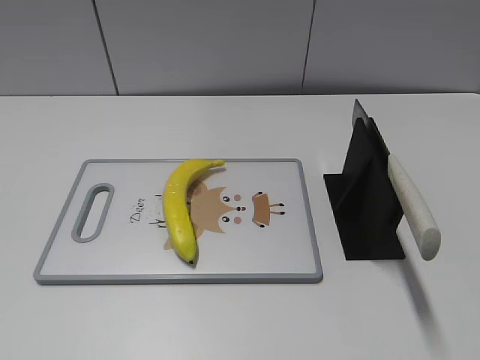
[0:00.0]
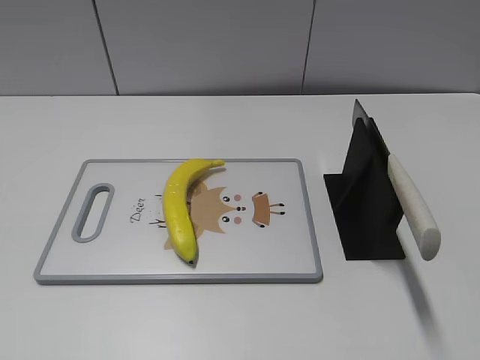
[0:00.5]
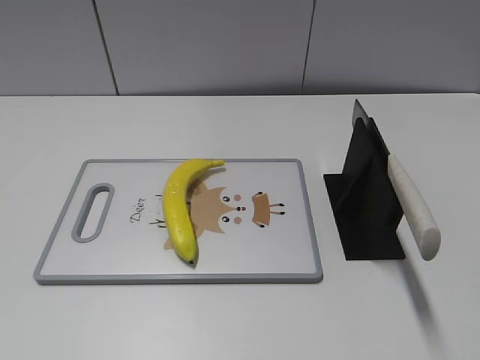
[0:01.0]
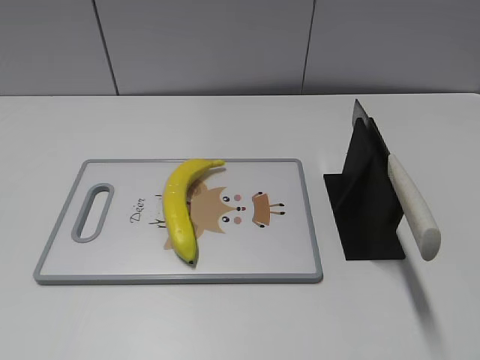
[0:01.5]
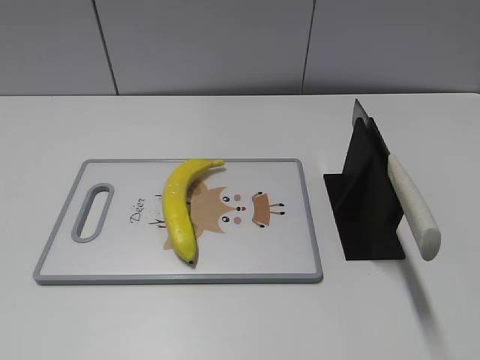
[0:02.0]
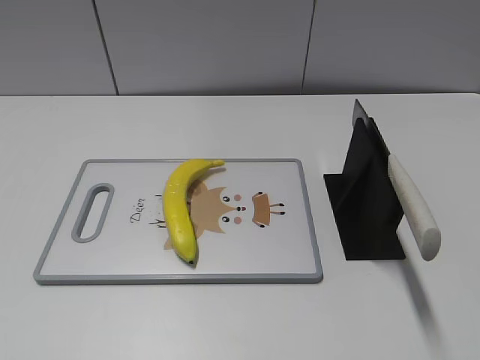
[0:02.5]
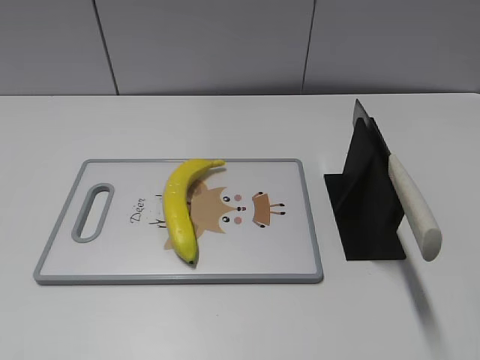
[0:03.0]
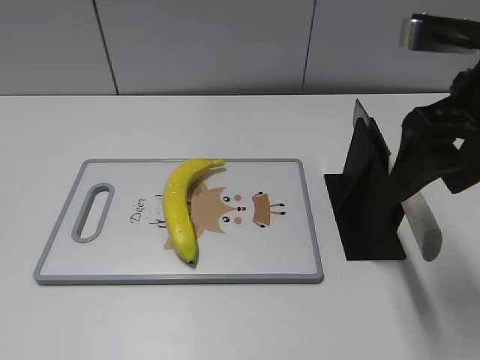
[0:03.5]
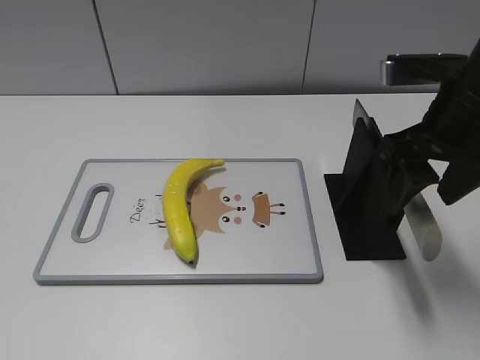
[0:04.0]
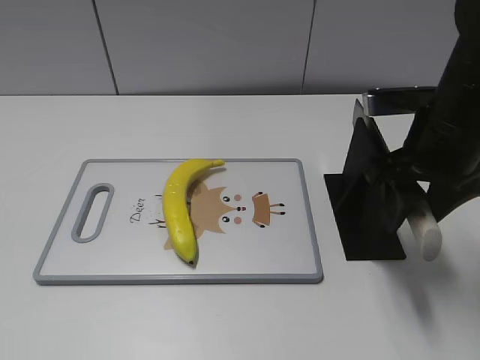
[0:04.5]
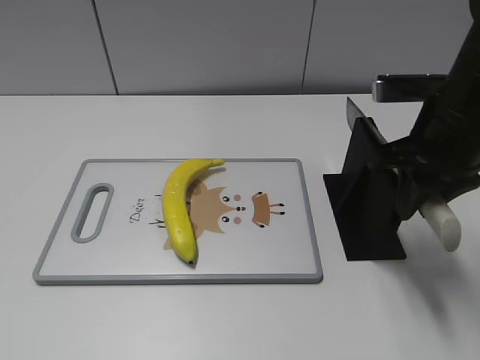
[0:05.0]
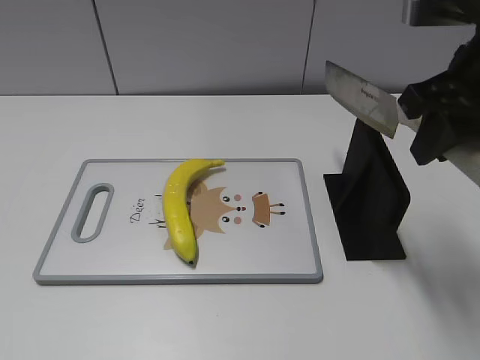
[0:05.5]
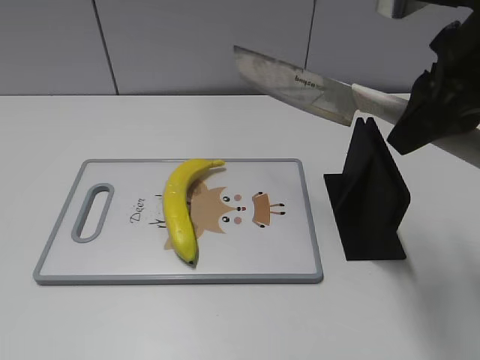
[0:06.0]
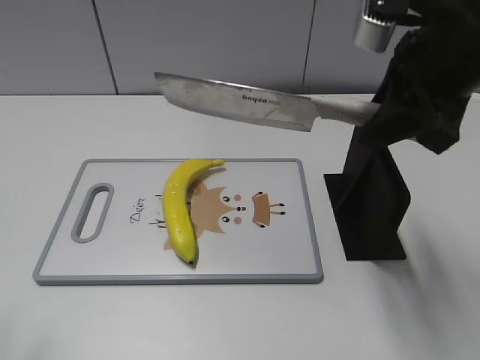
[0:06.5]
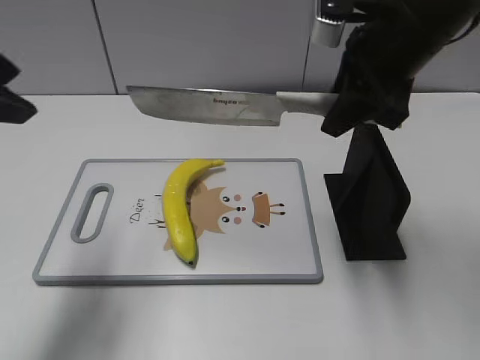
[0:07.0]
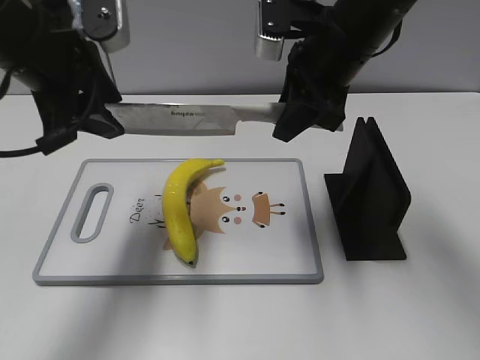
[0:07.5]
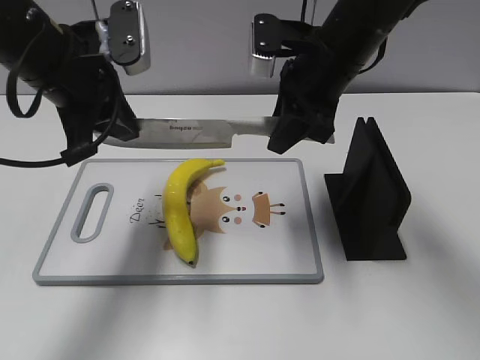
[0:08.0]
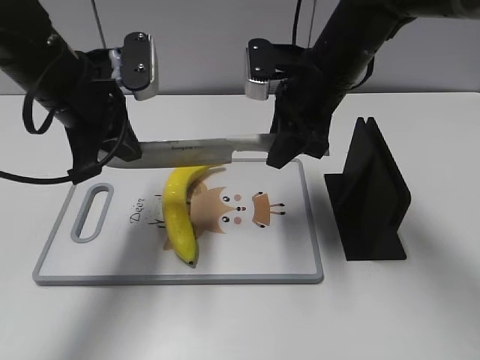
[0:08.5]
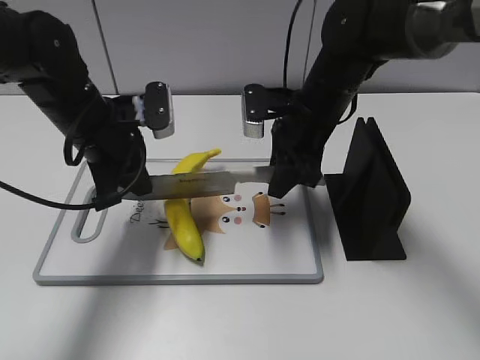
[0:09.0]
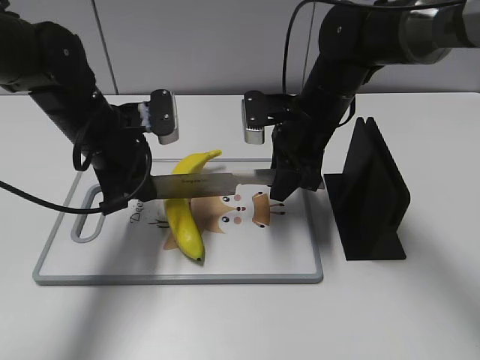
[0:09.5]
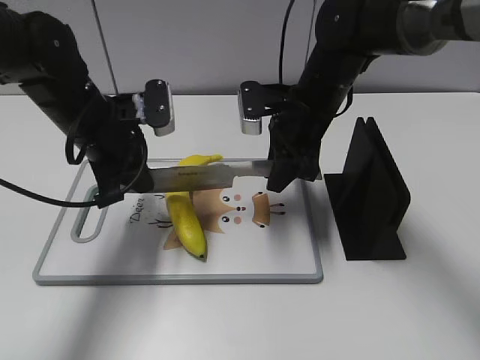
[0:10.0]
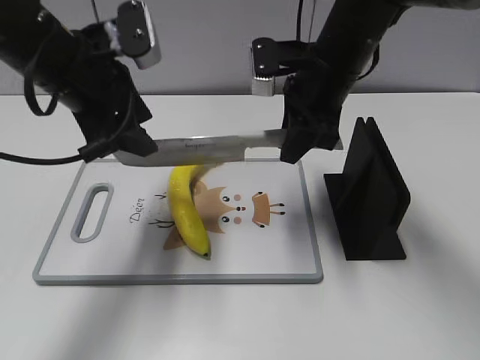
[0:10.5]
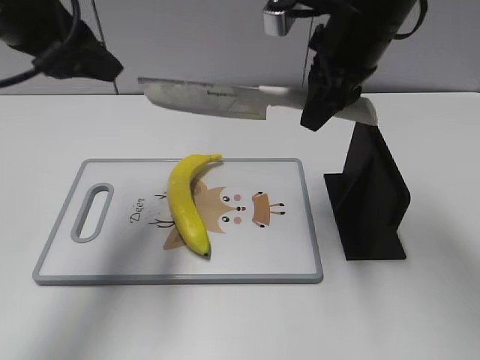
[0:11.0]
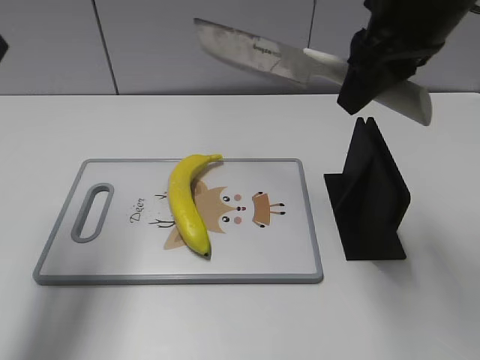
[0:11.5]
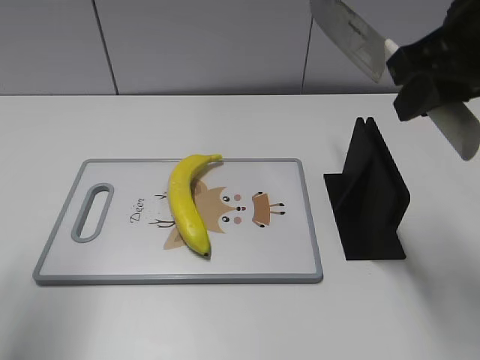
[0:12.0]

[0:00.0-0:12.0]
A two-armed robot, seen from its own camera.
Task of the whole recording: cut plastic banana.
Step, 0:00.0 to 0:05.5: Grab the knife handle with your right hand.
Step, 0:06.0 to 0:10.0: Lift the knife with your right hand.
Step, 0:10.5 to 0:11.5: Cut the banana with your right hand.
0:02.0 to 0:04.0: The right gripper moves forward, some 25 cm.
0:04.0 to 0:06.0: The right gripper travels upward by roughly 5 cm, and closes.
0:06.0 to 0:08.0: The right gripper travels forward, to the left and downward by some 15 cm. Meanwhile the left gripper heads forward and to the right, covering some 35 cm, and closes.
0:08.0 to 0:10.0: The grippers both shift downward by roughly 10 cm.
0:10.0 to 0:12.0: The left gripper moves upward, backward and to the left, about 25 cm, and opens up. Meanwhile the right gripper is displaced upward, backward and to the right by approximately 25 cm.

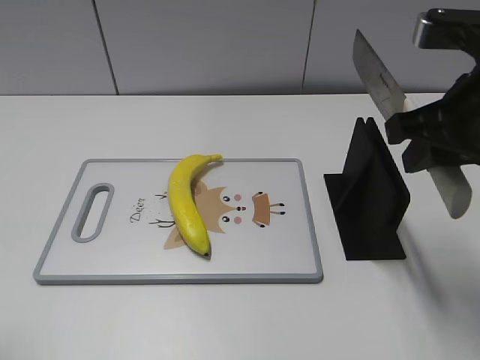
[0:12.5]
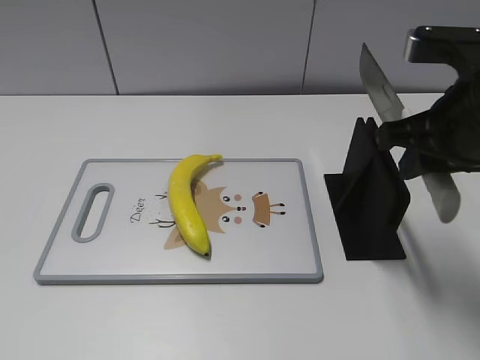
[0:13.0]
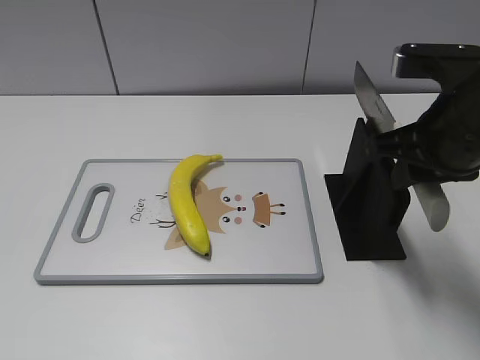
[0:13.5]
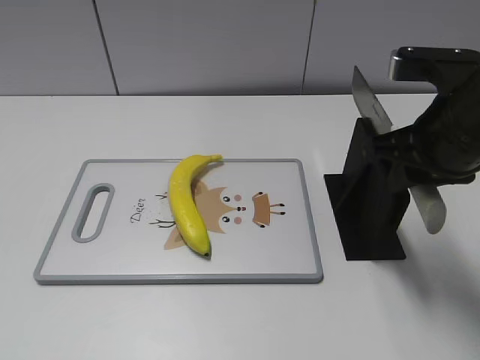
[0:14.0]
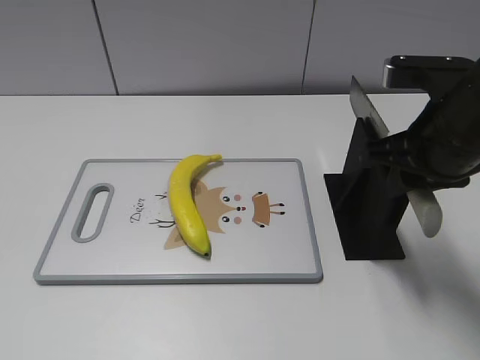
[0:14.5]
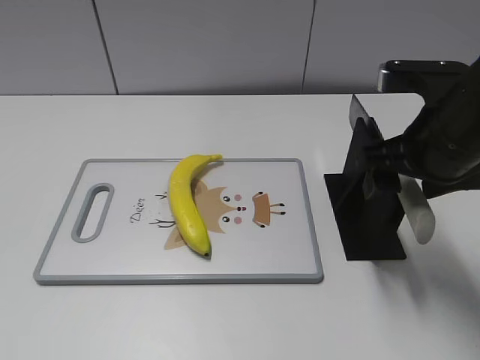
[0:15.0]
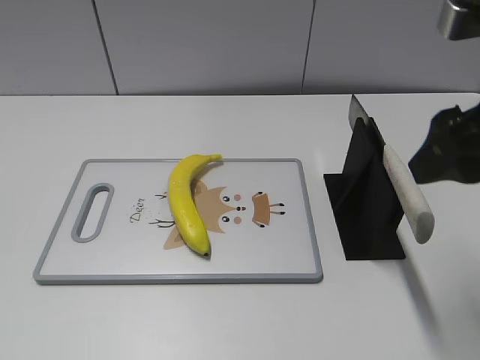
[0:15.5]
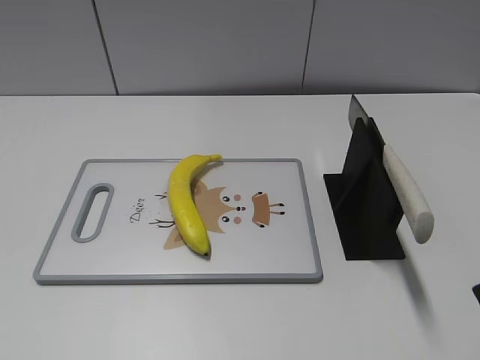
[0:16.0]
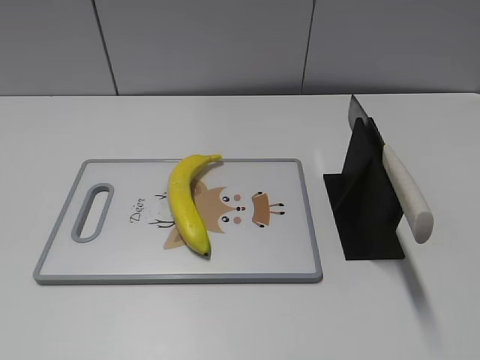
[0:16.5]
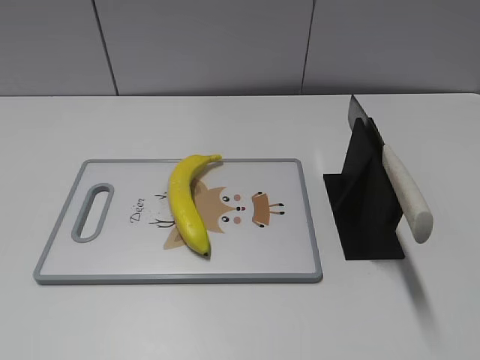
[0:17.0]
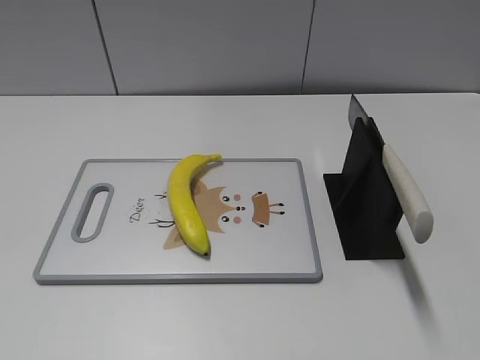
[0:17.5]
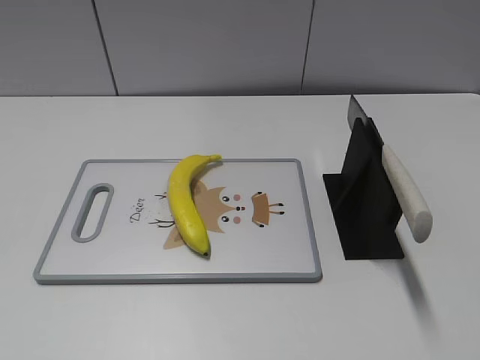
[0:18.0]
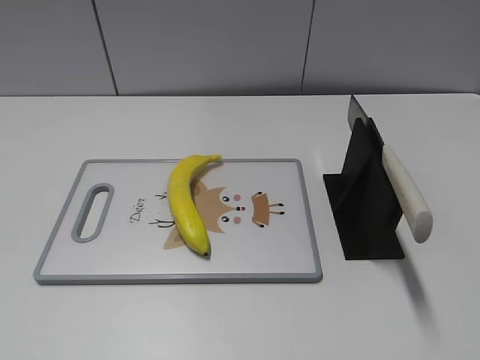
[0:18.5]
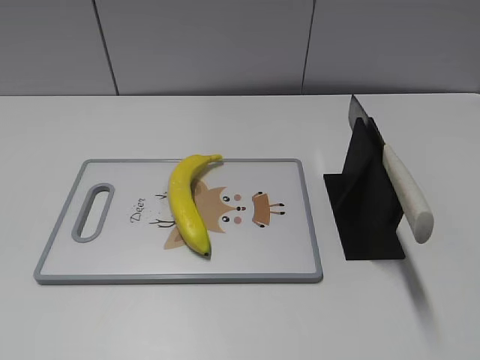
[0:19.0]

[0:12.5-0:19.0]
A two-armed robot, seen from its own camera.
Task of the whole recording: cut plastic banana.
Step, 0:13.0 to 0:18.0: Place the knife on the storage rack with your right hand.
0:12.5 to 0:14.5: The right gripper ends up roughly 5 cm from where it was.
0:14.5 to 0:17.0: The right gripper heads backward, covering approximately 25 cm, and opens.
